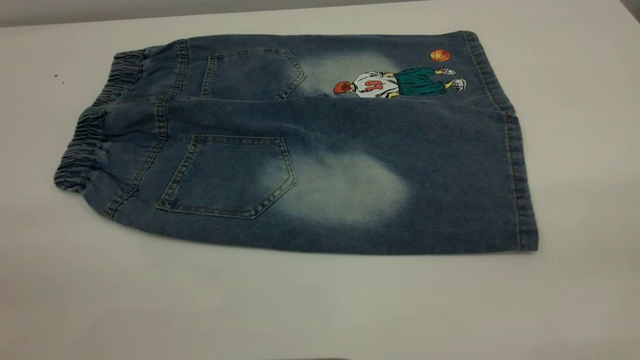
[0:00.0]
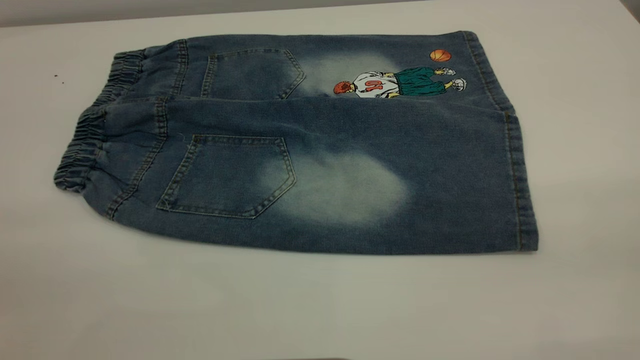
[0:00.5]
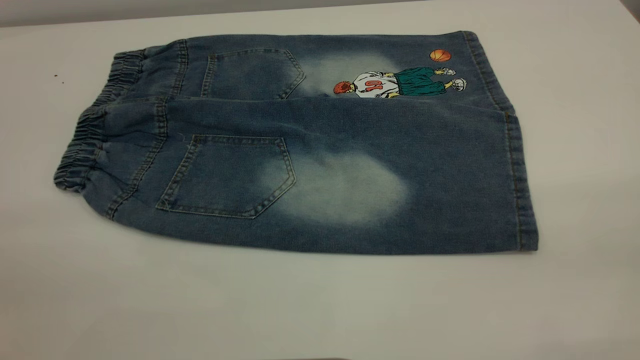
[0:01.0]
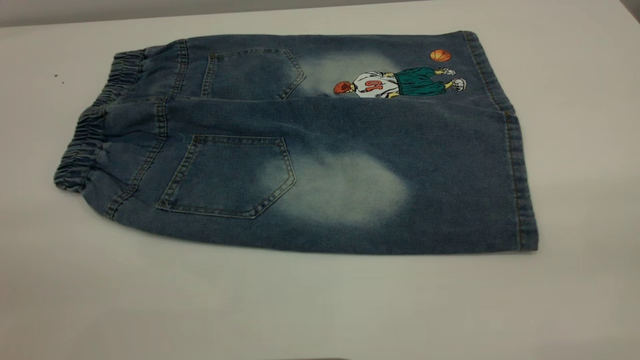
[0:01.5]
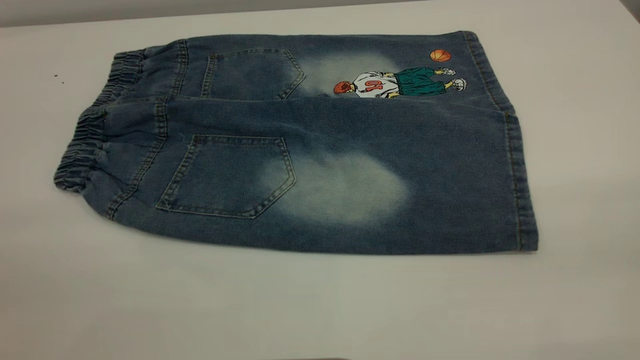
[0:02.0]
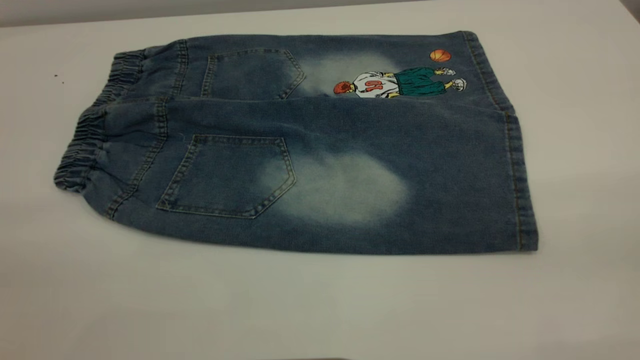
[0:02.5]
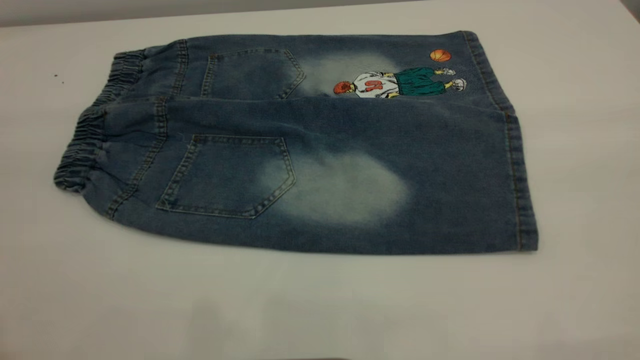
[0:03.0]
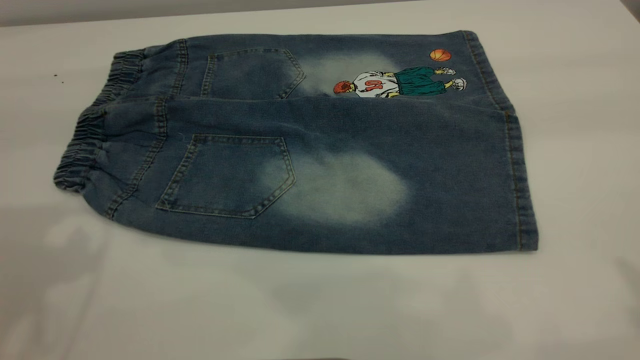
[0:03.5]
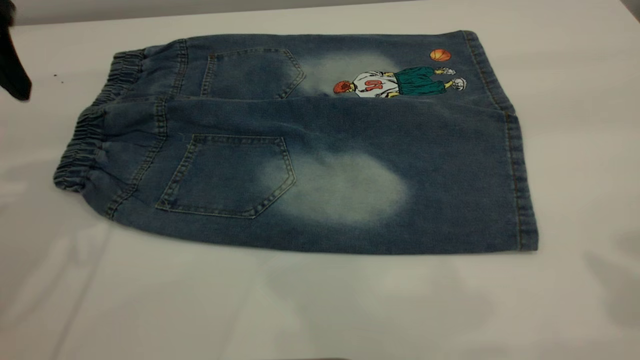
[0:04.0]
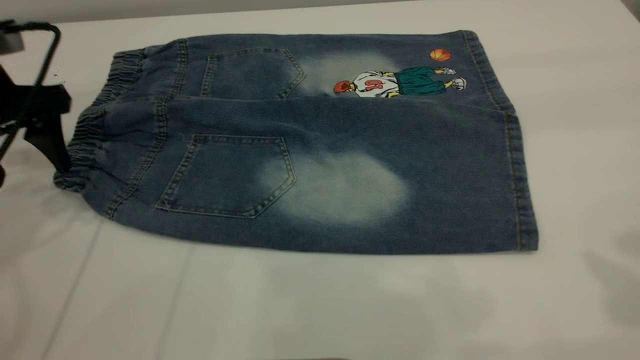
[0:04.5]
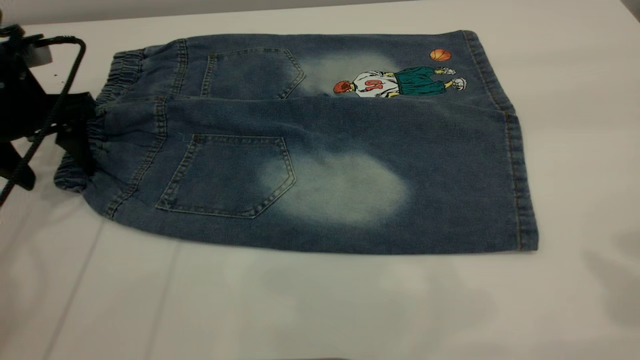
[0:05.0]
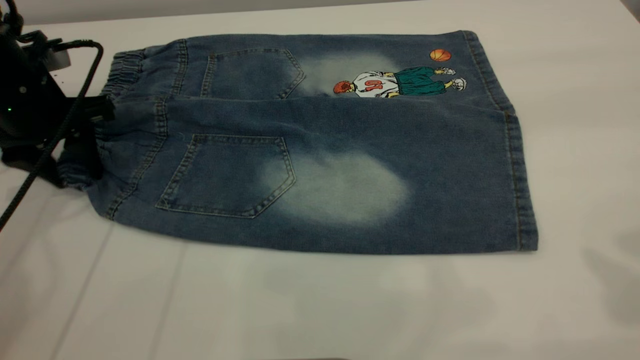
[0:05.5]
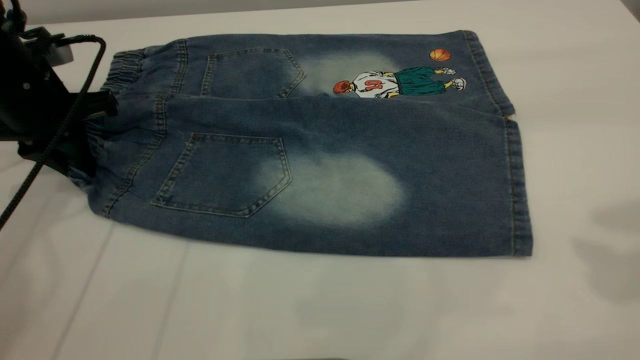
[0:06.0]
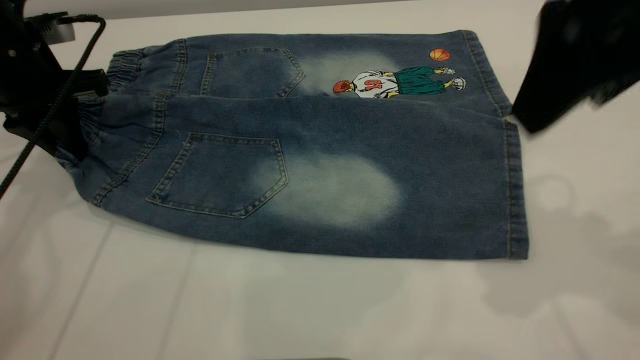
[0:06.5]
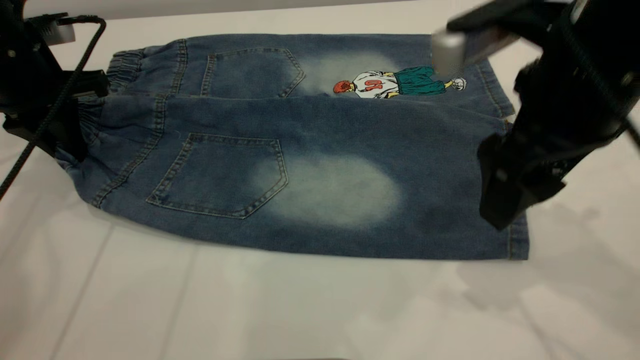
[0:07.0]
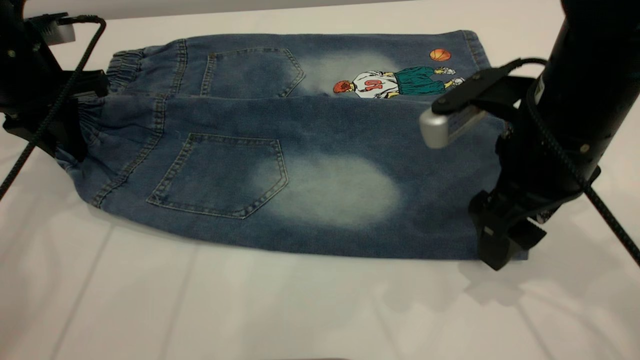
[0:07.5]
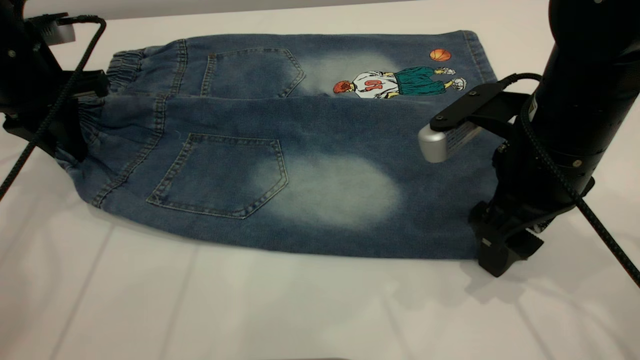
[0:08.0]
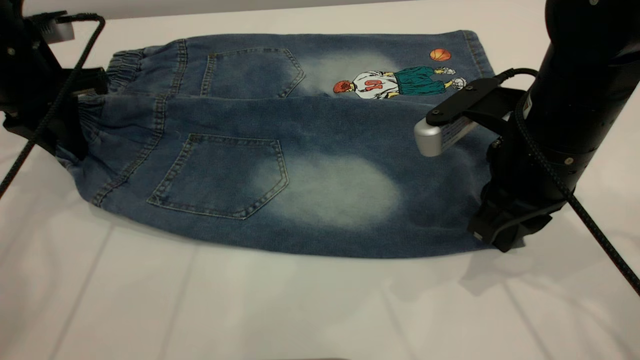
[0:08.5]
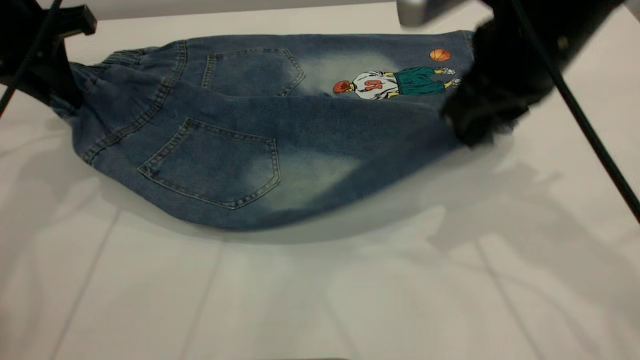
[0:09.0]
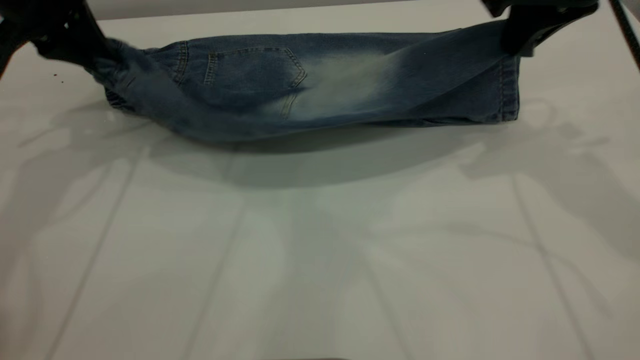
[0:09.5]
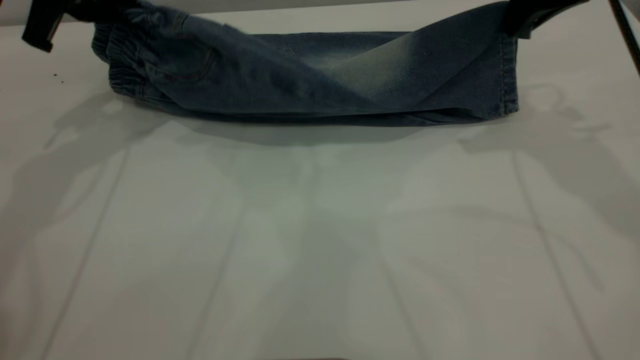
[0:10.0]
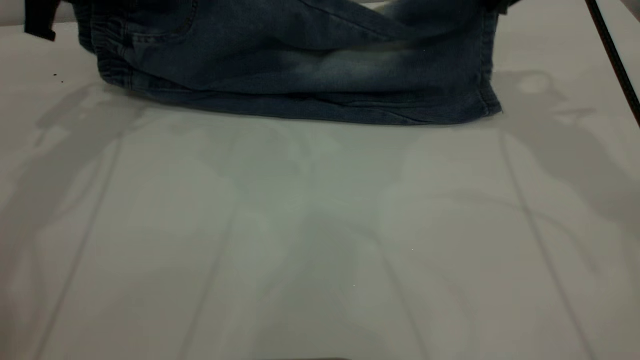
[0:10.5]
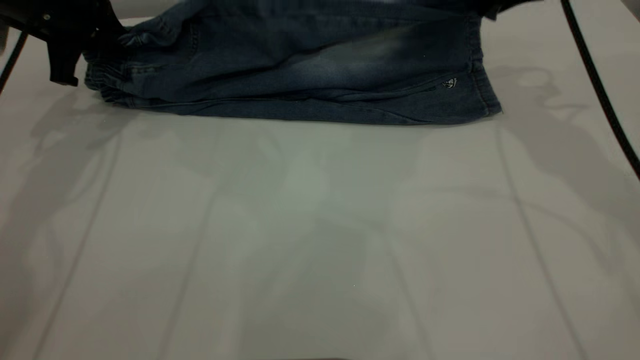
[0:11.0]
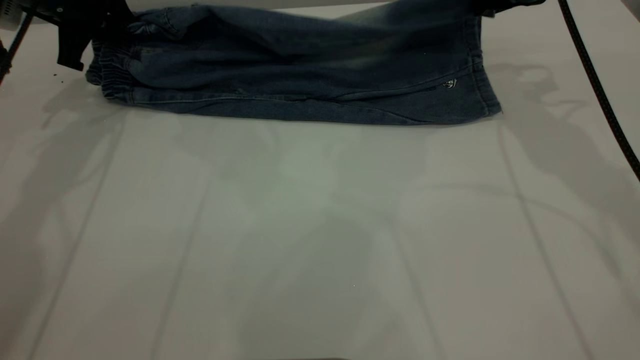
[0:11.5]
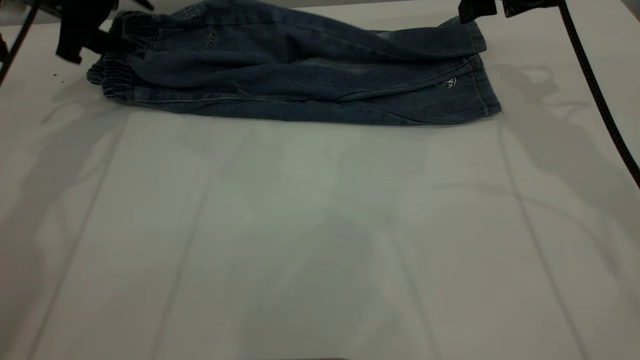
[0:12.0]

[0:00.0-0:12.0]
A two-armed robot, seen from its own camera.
0:00.0 to 0:02.0: Both grippers stay put.
0:02.0 to 0:04.0: The left gripper shifts about 30 cm forward.
0:04.0 to 0:06.0: The left gripper shifts roughly 15 cm downward and forward, and closes up.
0:06.0 to 0:08.0: The right gripper heads downward and to the left, covering roughly 25 cm.
0:08.0 to 0:10.0: The left gripper is displaced upward by roughly 5 cm. The right gripper travels forward, upward and to the right by some 15 cm, and closes up.
0:10.0 to 0:12.0: The left gripper shifts roughly 10 cm forward and downward, and opens up; the right gripper moves about 5 cm, and opens.

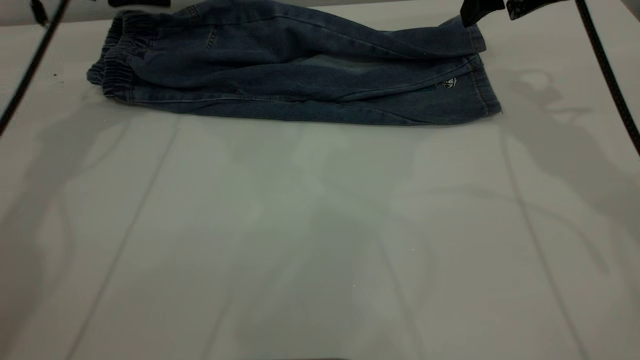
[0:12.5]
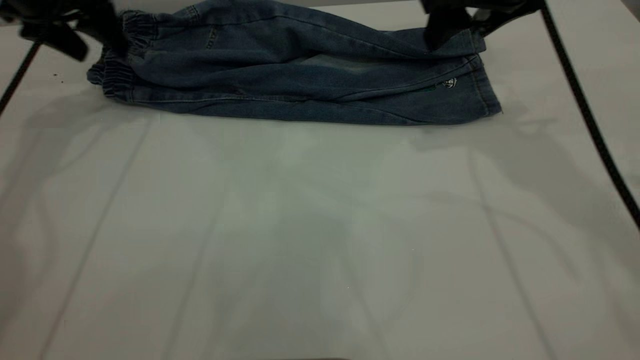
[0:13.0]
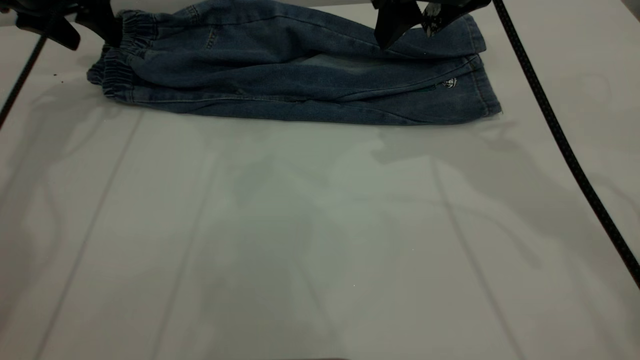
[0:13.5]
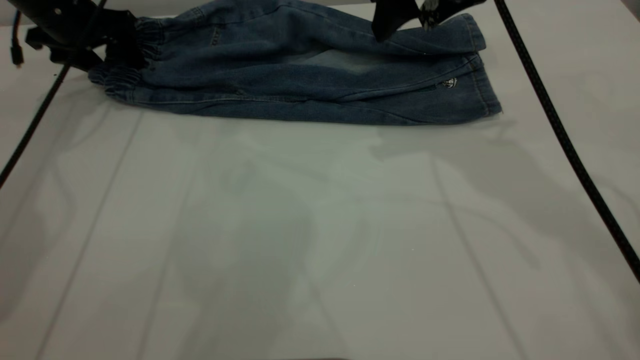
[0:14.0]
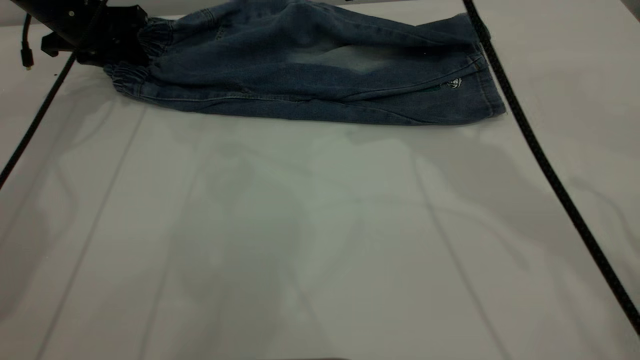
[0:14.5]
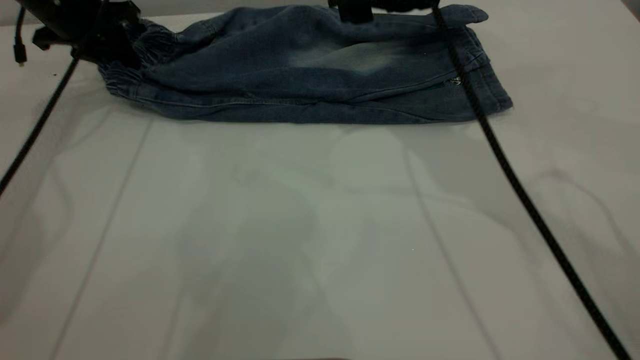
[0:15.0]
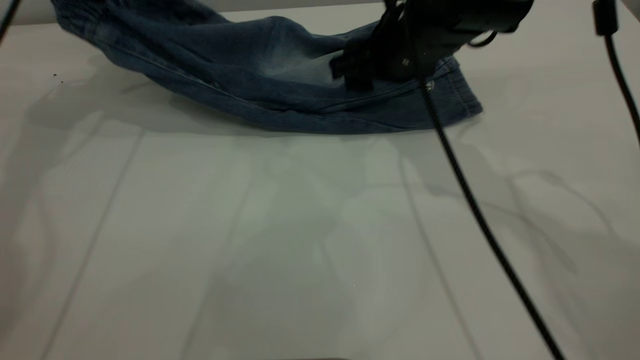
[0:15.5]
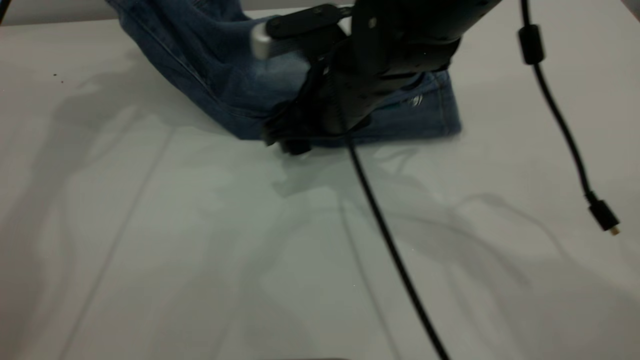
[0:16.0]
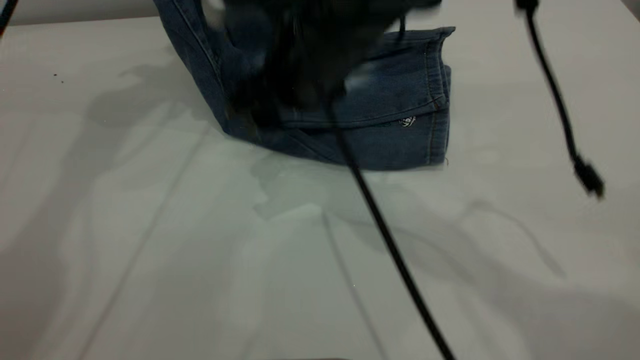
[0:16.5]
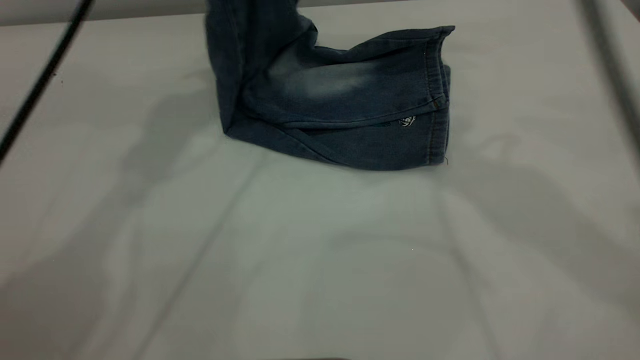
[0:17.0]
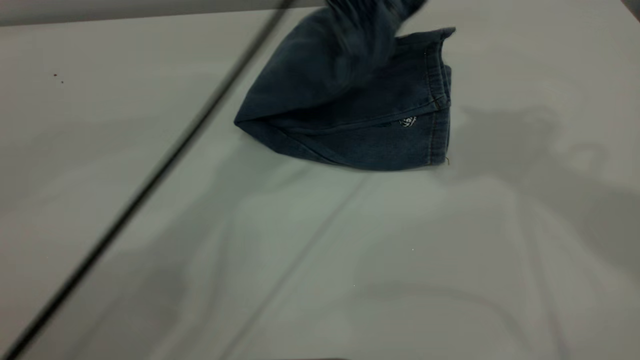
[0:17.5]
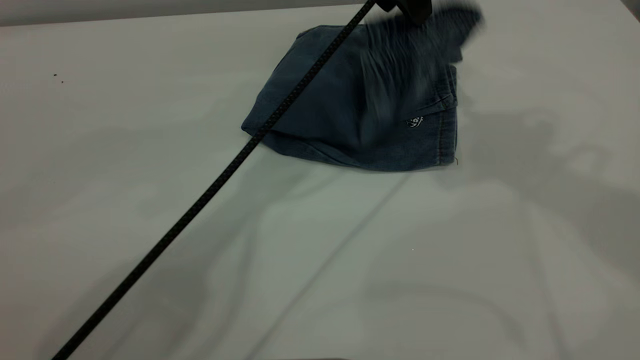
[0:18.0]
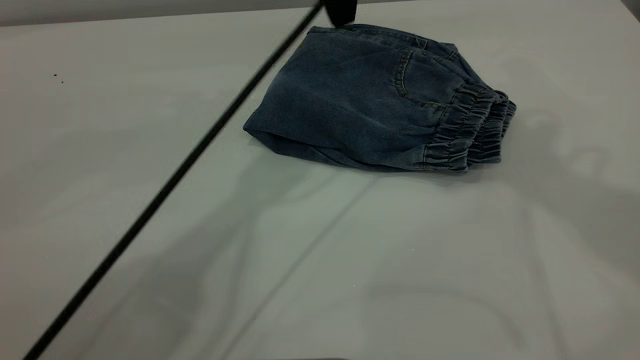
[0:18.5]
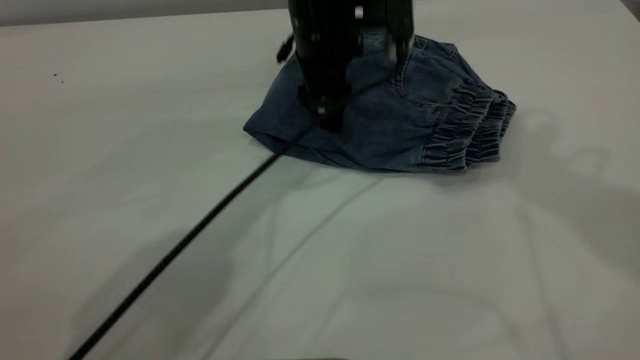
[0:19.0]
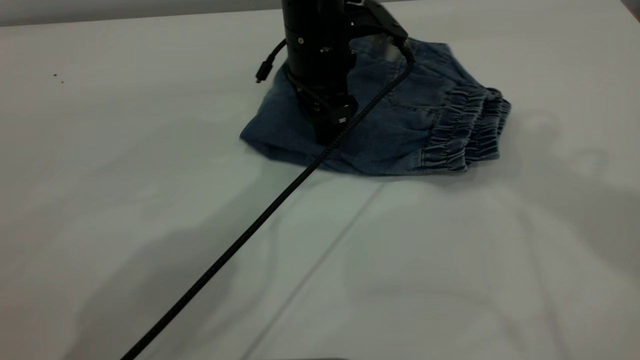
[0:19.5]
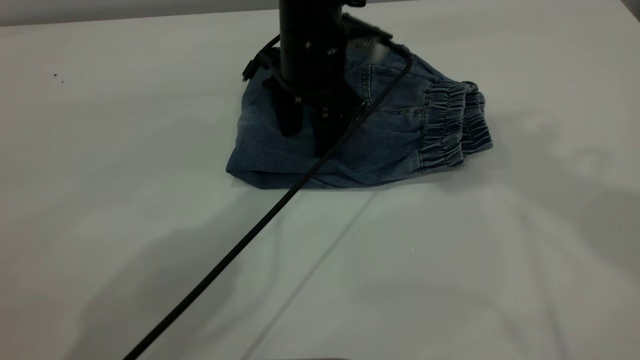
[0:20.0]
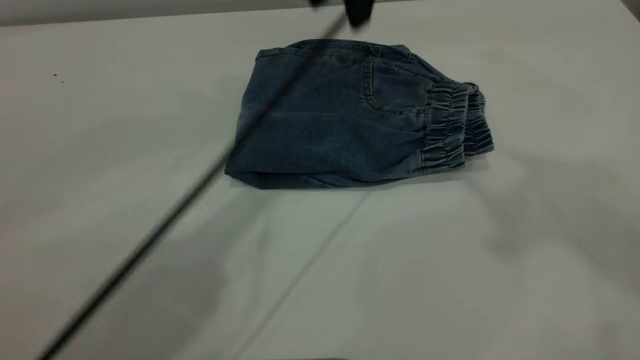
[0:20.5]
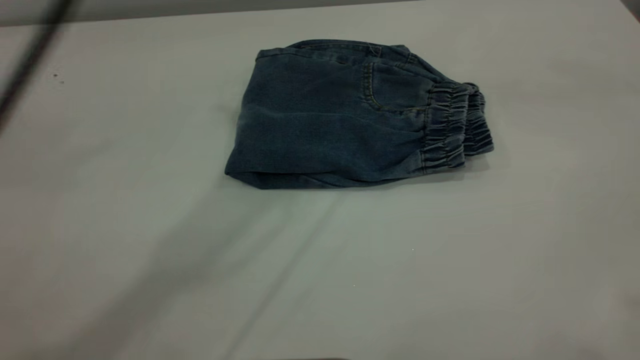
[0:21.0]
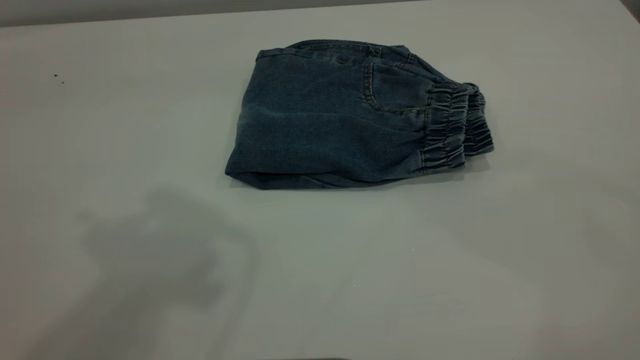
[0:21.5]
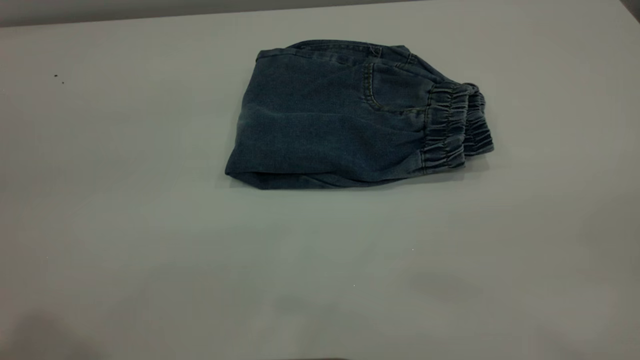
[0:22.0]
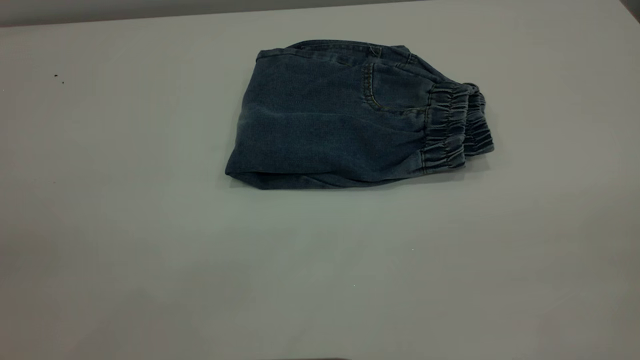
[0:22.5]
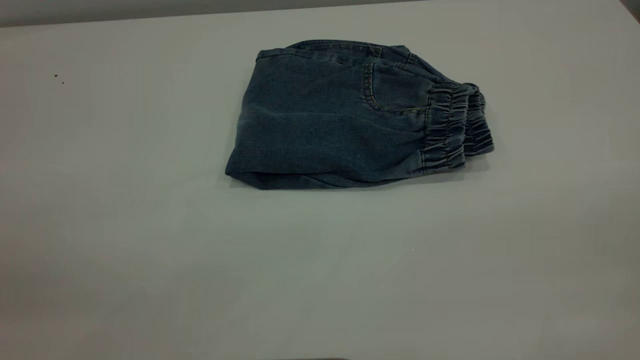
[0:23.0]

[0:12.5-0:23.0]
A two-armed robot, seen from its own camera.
Step, 0:13.5 to 0:18.0: Fold the pants from left to right.
0:12.5 to 0:14.5: The right gripper moves to the left, approximately 10 cm. The left gripper is displaced downward and to the left by approximately 10 cm, and closes its fingers.
0:14.5 to 0:16.5: The left gripper is displaced upward and to the right by approximately 25 cm. The right gripper moves to the left and backward, approximately 10 cm, and goes downward and returns, roughly 10 cm each way.
0:16.5 to 0:19.0: The right gripper travels upward and to the right by some 30 cm. The left gripper heads to the right and downward, covering about 30 cm, and opens.
0:19.0 to 0:21.0: The right gripper travels backward and upward by roughly 25 cm, while the left gripper heads upward, covering some 30 cm.
0:21.0 to 0:23.0: The left gripper shifts some 40 cm backward and to the left.
